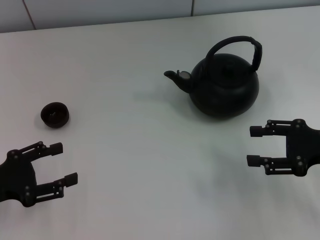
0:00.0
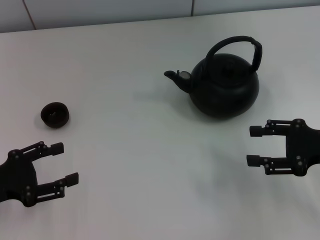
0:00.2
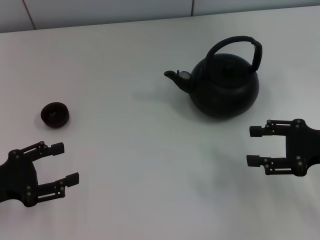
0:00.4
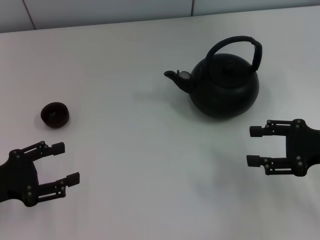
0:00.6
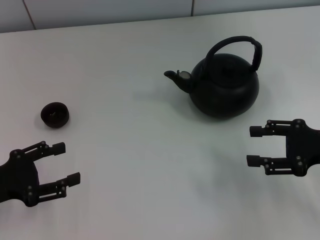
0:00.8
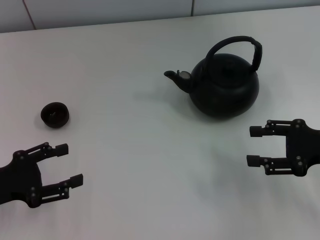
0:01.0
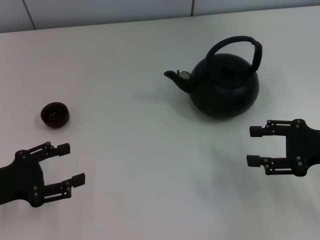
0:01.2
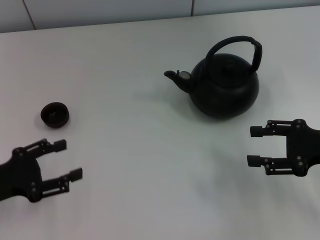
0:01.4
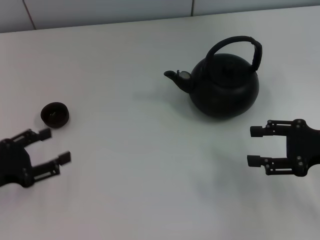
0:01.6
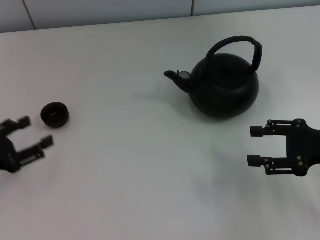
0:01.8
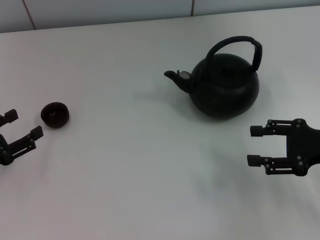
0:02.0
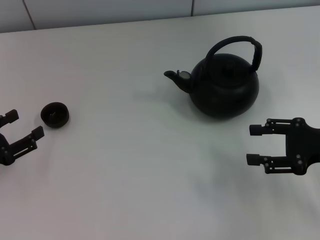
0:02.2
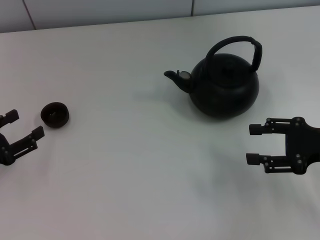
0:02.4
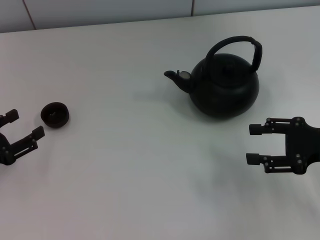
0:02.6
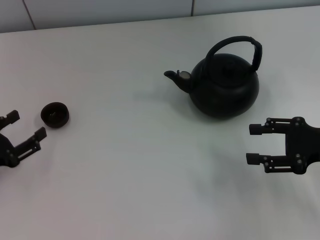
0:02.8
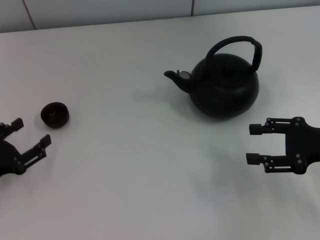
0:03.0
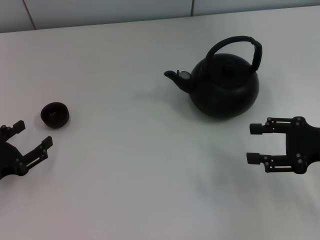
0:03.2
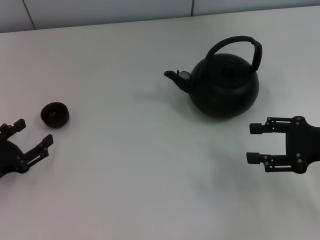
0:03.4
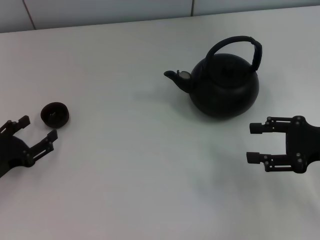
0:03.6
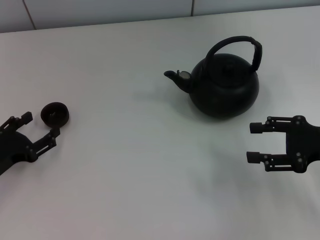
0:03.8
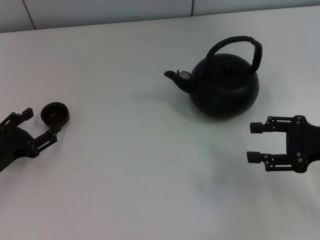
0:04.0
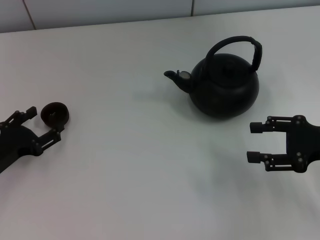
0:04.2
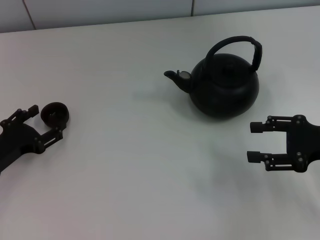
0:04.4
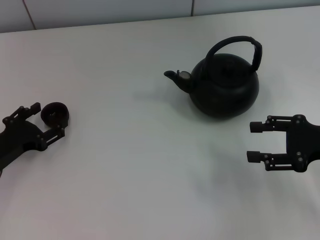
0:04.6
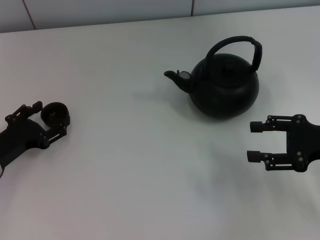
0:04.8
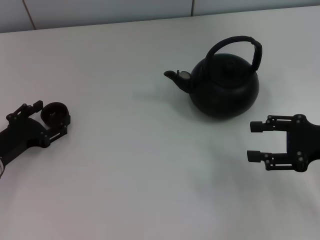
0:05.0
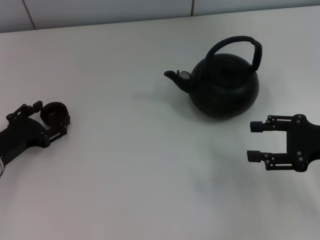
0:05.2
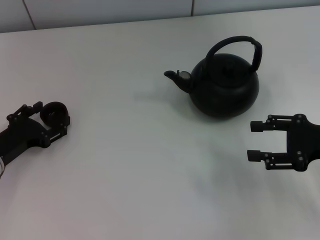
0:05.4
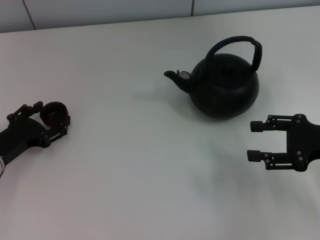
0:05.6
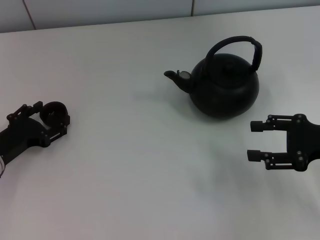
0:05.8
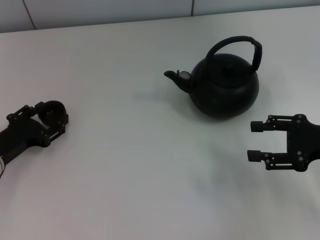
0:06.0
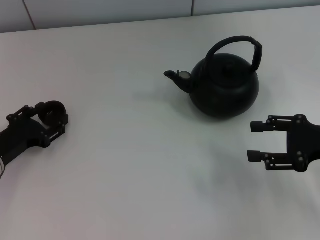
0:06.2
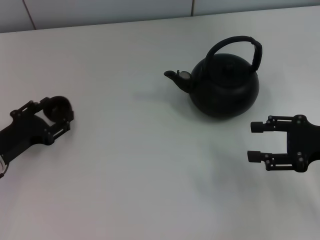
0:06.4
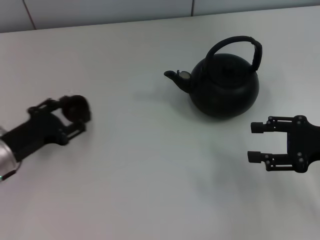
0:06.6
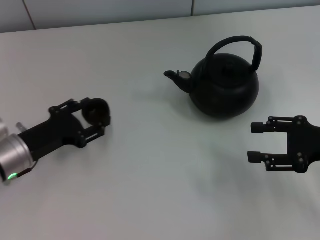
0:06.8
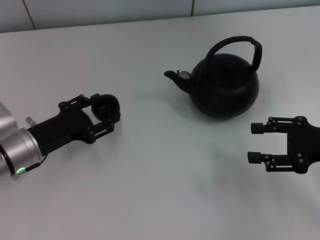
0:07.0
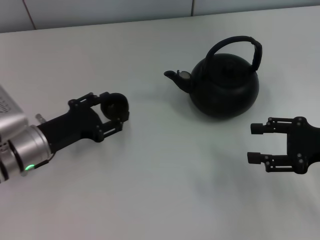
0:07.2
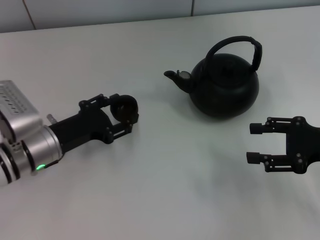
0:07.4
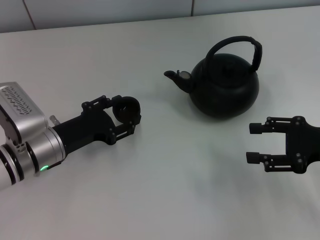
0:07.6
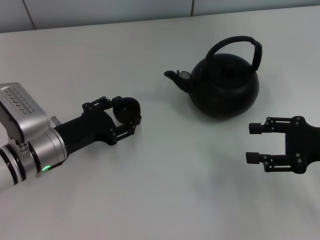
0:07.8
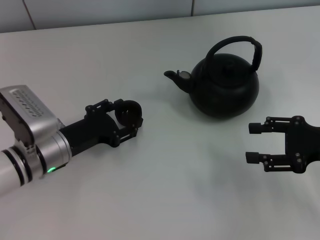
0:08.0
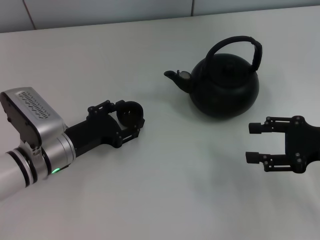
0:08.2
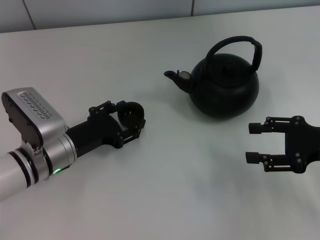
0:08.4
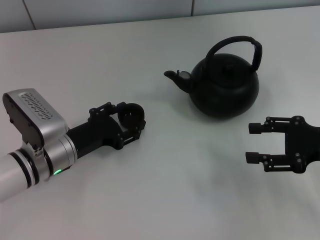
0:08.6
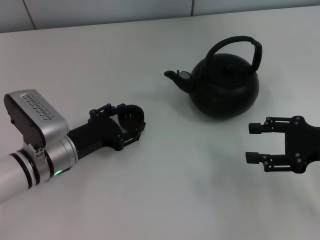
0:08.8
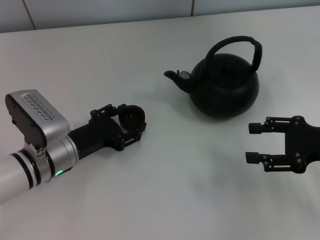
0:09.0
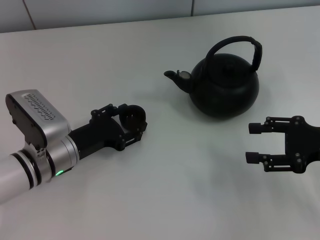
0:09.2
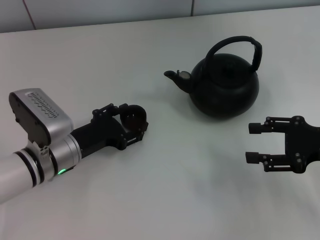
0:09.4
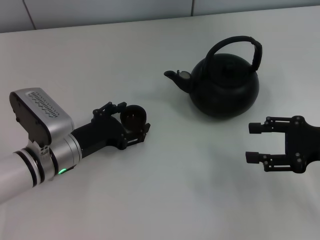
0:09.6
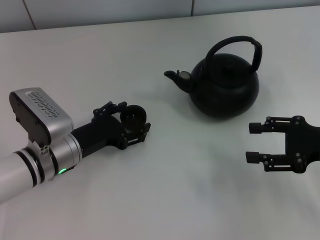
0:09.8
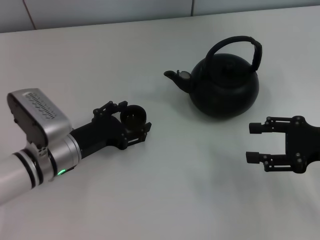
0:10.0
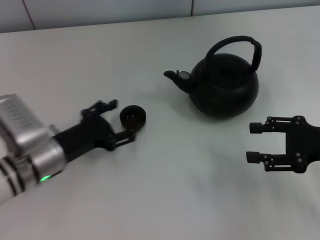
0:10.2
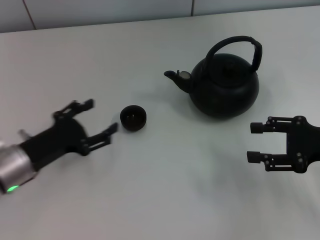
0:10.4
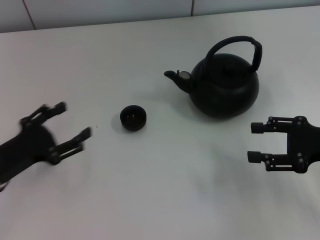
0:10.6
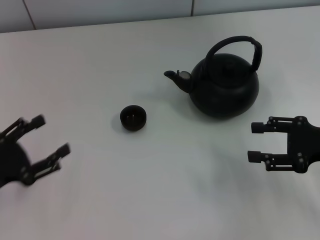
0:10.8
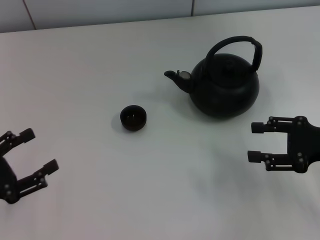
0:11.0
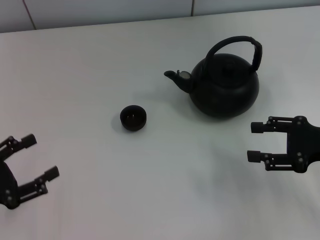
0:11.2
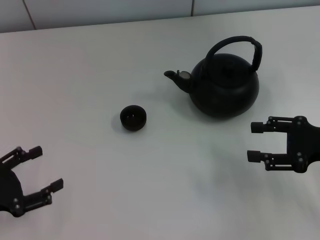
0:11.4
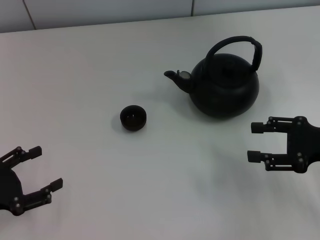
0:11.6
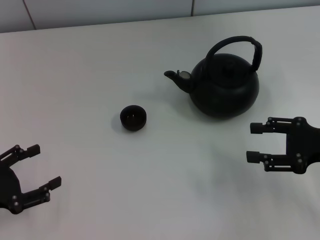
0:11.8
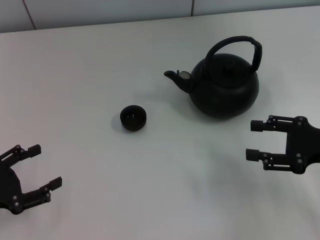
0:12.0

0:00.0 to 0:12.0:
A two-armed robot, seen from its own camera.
Task of the whole recording: Grasp the handle of the teapot with one hand and pour tea into the teacup.
Step, 0:00.0 to 0:06.4: Pick up the teacup with the left gripper.
Step, 0:06.8 to 0:10.2: Place the teacup in the center of view with the left gripper.
0:00.0 to 0:01.6: The grippers move only a little.
0:01.6 to 0:03.0: The grippers make only small movements.
0:03.0 to 0:04.4: There are only small adjustments of the grippers.
0:04.4 to 0:06.0: The left gripper closes.
0:06.0 to 0:07.6: The left gripper is displaced to the right by some 10 cm.
0:07.6 to 0:09.0: The grippers make only small movements.
0:09.0 to 0:10.4: The left gripper opens.
0:10.4 to 0:12.0: The left gripper moves to the left and backward, about 15 cm.

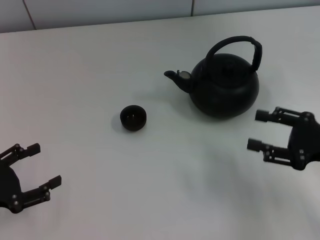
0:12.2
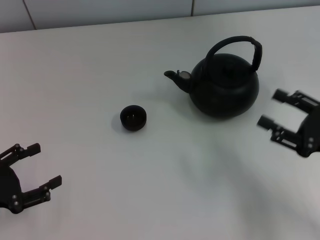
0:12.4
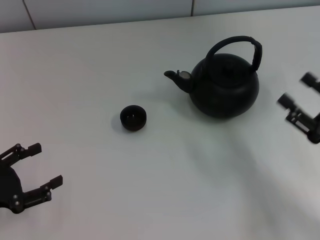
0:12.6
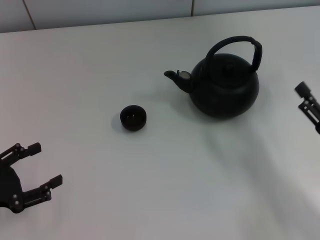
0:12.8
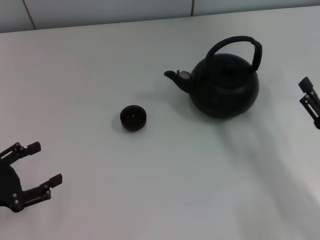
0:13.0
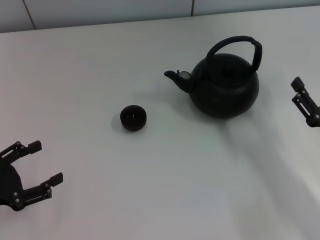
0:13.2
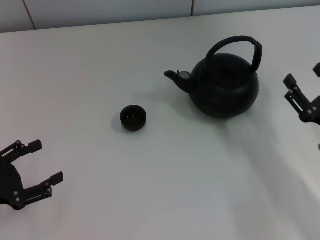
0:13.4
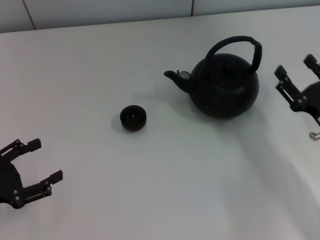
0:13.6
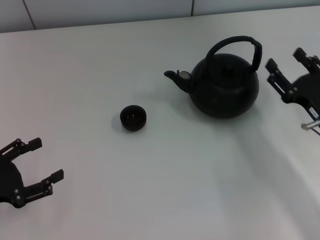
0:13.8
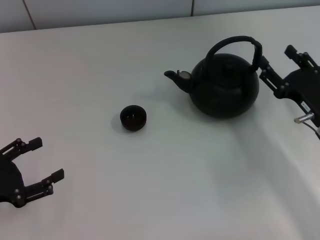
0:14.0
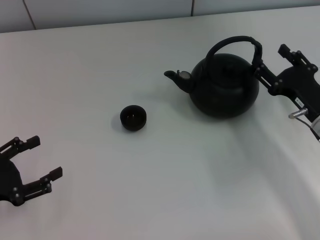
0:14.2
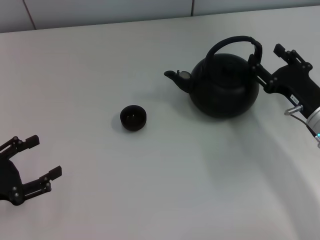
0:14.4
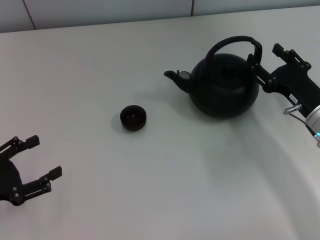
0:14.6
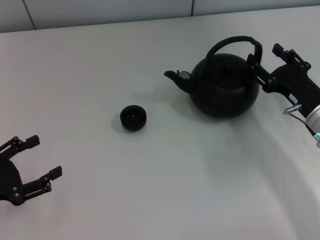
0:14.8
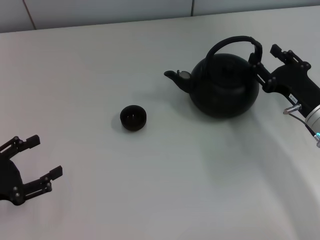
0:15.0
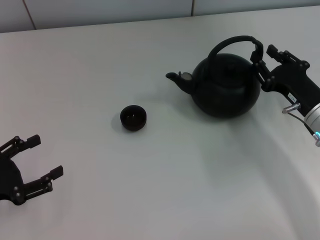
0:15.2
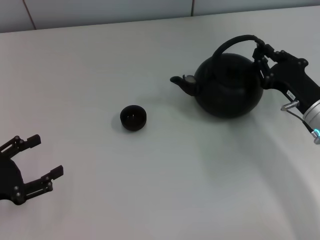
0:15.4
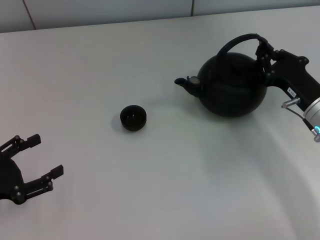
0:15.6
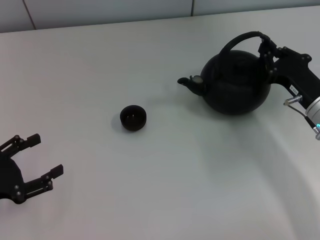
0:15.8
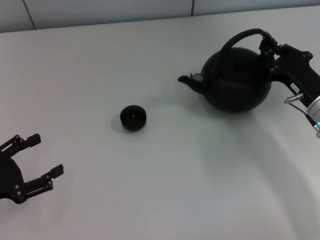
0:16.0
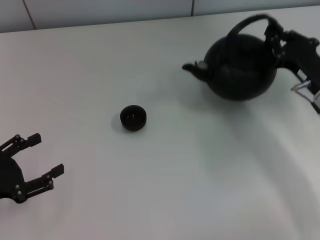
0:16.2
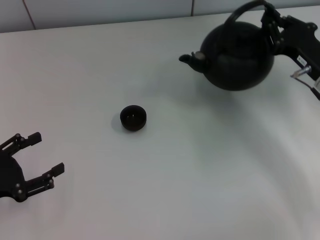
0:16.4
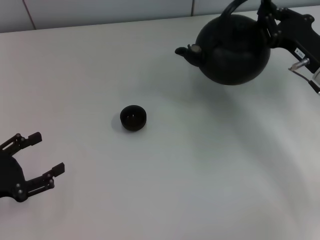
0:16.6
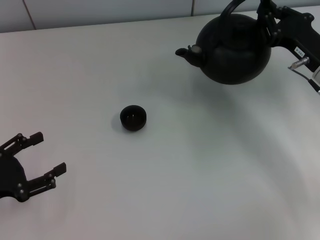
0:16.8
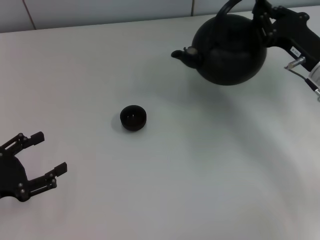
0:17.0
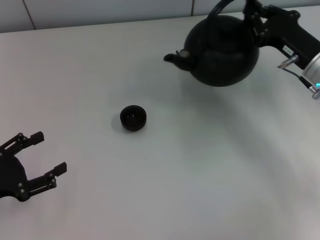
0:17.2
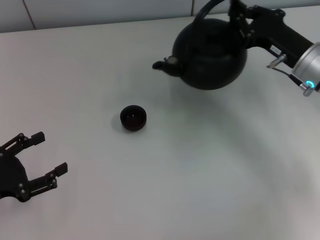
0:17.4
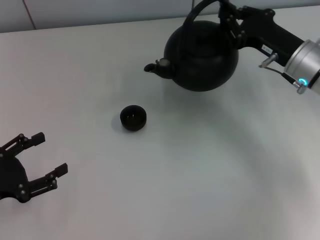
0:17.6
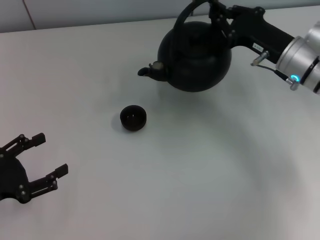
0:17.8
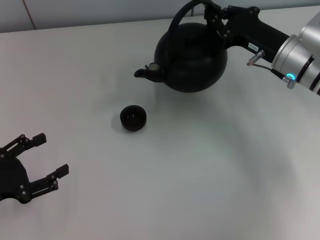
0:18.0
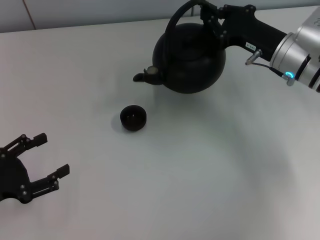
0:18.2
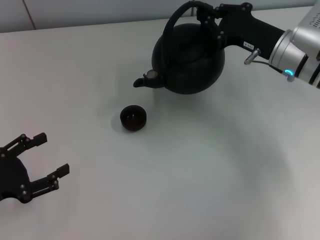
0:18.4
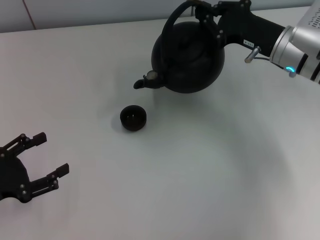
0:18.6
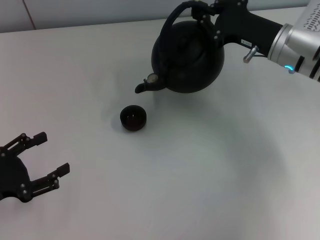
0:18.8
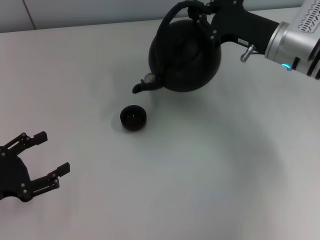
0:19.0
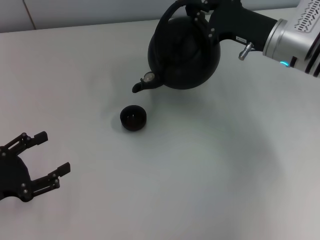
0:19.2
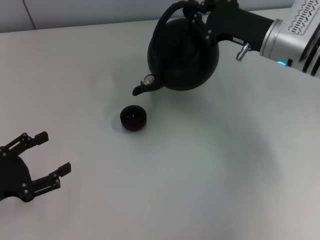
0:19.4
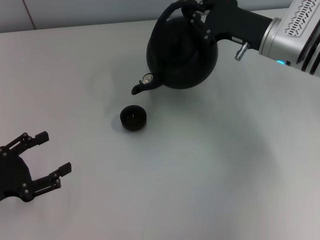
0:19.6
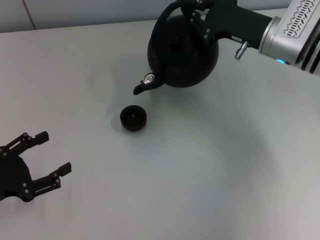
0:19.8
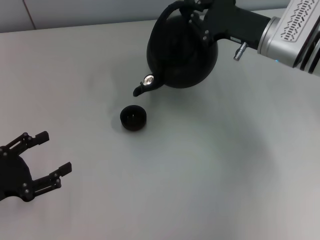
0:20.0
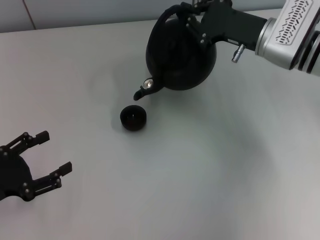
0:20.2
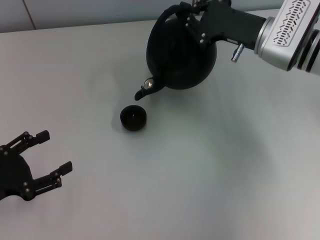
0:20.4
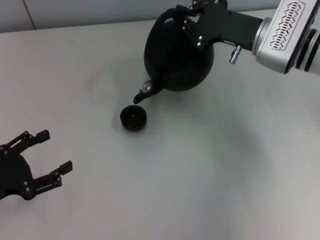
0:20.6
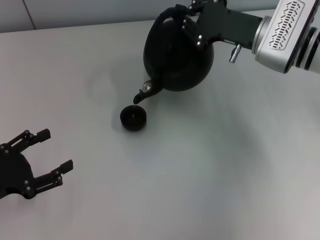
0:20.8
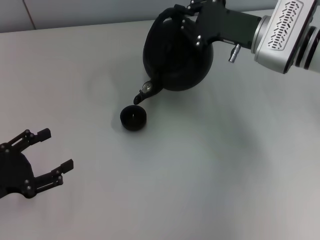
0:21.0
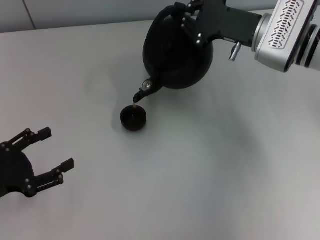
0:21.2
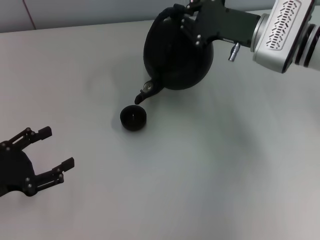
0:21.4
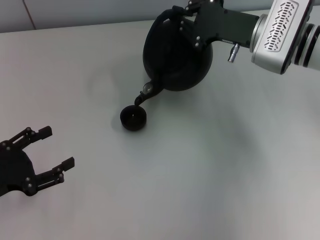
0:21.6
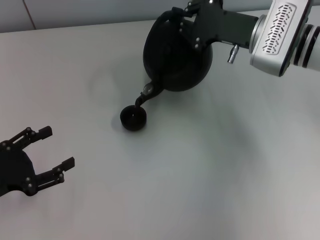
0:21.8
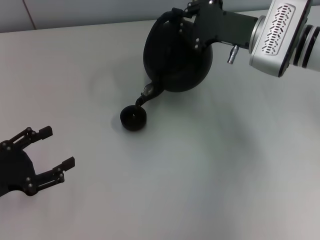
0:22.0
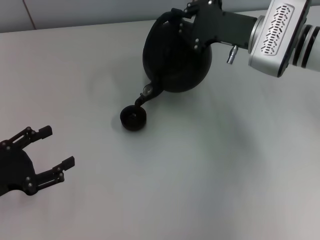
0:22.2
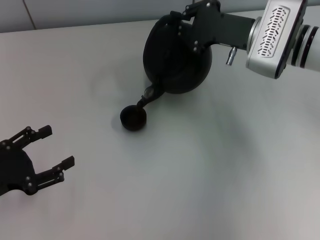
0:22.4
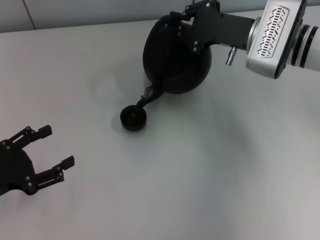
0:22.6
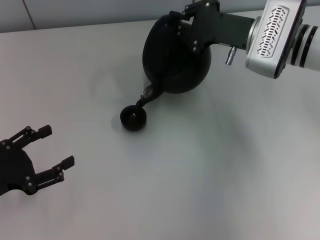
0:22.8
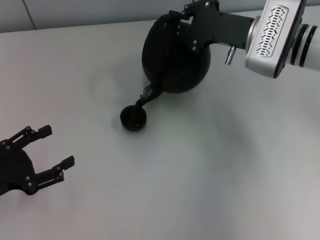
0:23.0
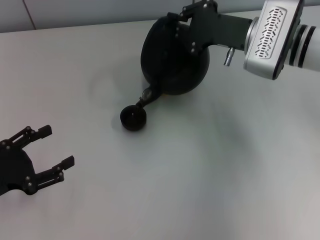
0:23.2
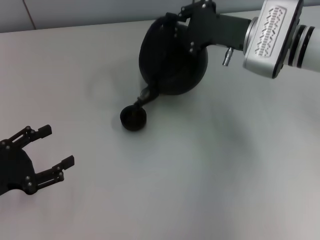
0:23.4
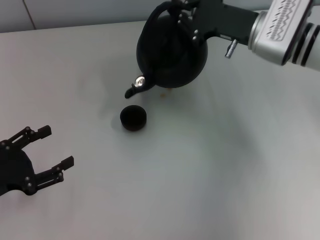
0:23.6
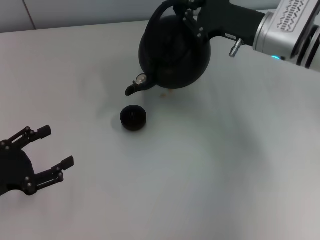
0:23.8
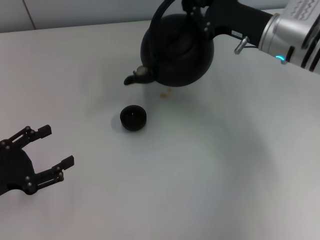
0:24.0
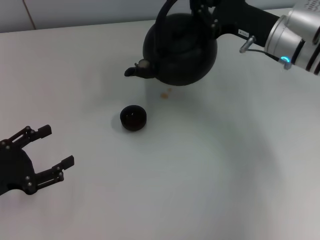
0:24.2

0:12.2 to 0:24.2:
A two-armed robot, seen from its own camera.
Task of the whole recording: Grasp the handle of the teapot with one hand and pour tea into the teacup.
Step, 0:12.2 to 0:16.8: Pick up the teapot with the right gripper.
0:12.2 to 0:13.8: The right gripper changes place by some 5 cm.
0:13.8 to 0:15.2: The grippers make only small movements.
0:15.2 to 0:16.6: The right gripper changes place by about 5 cm, and closes its fingers.
0:16.6 to 0:18.2: The right gripper moves to the left, approximately 5 cm.
0:19.8 to 0:22.6: The grippers make only small movements.
